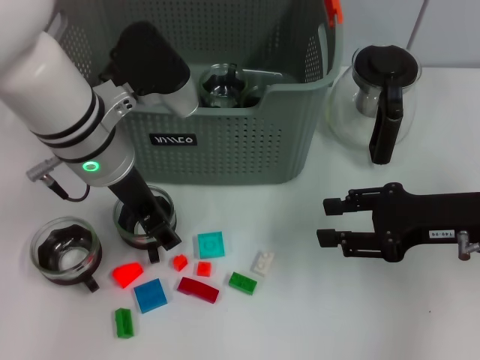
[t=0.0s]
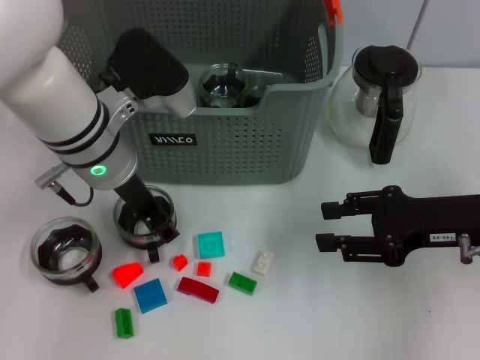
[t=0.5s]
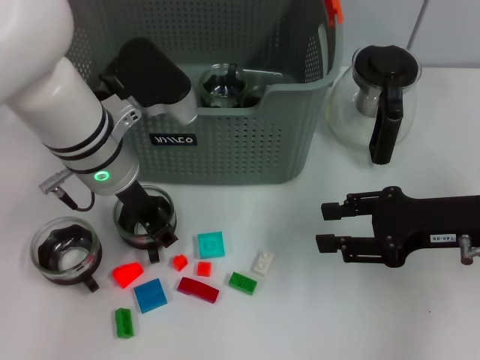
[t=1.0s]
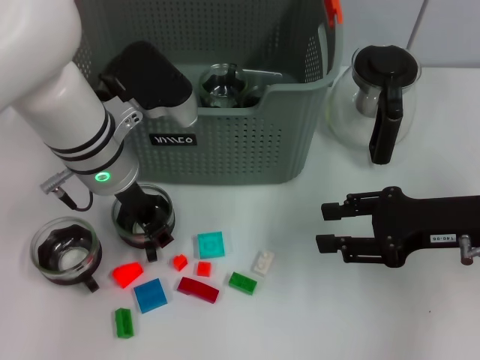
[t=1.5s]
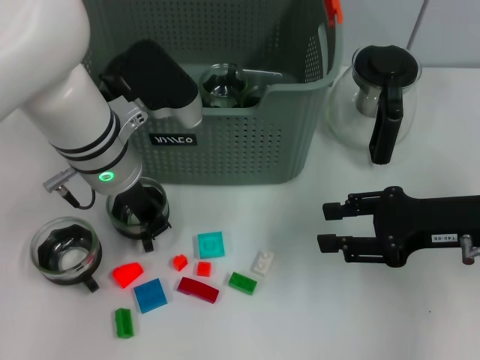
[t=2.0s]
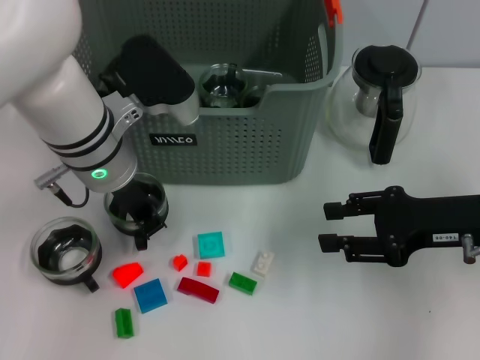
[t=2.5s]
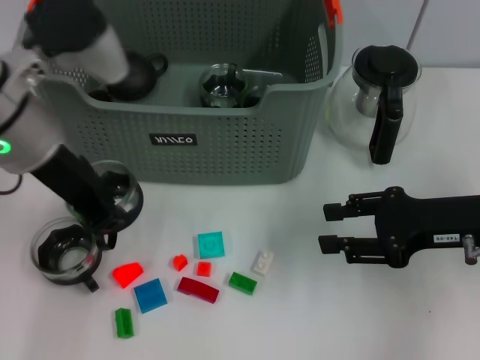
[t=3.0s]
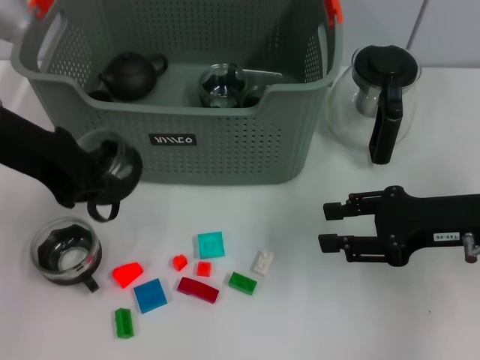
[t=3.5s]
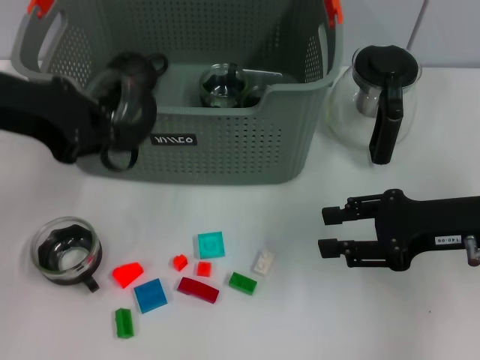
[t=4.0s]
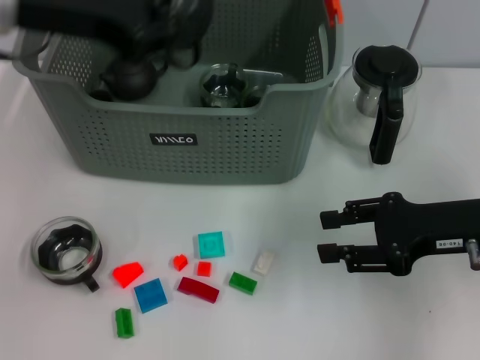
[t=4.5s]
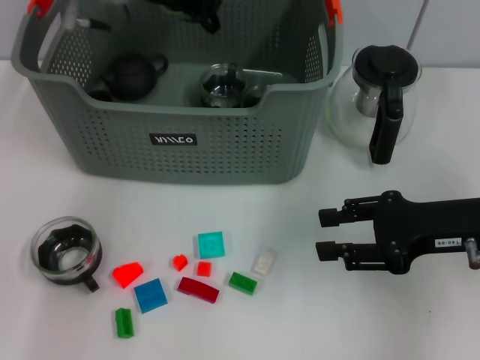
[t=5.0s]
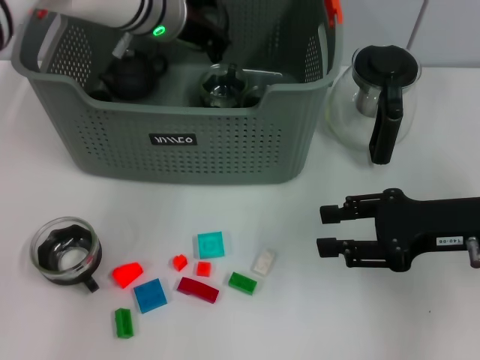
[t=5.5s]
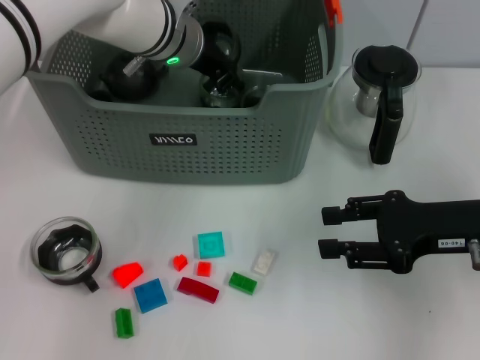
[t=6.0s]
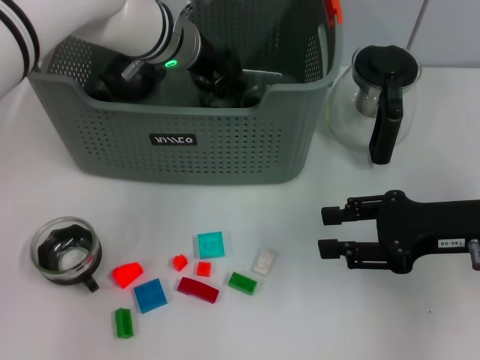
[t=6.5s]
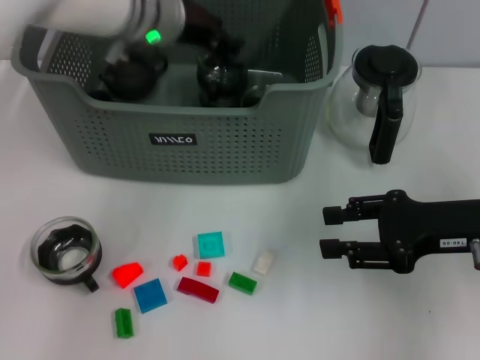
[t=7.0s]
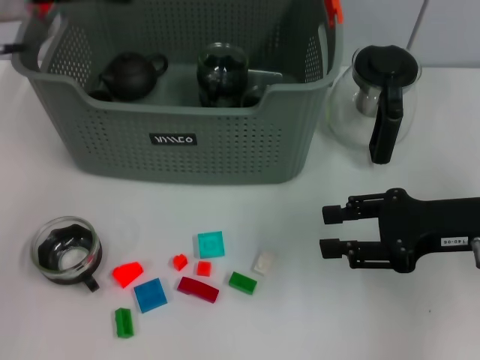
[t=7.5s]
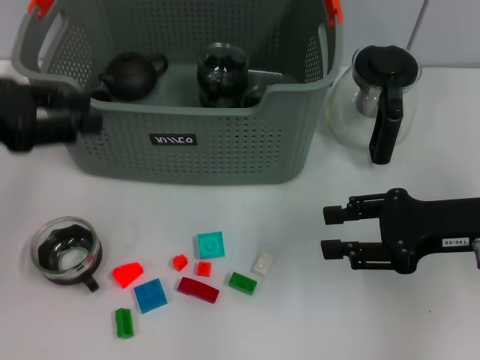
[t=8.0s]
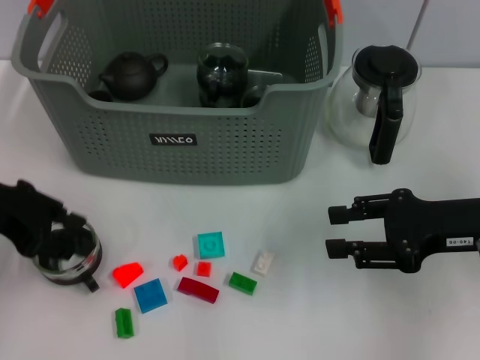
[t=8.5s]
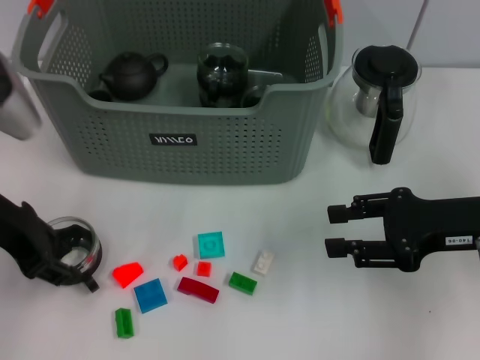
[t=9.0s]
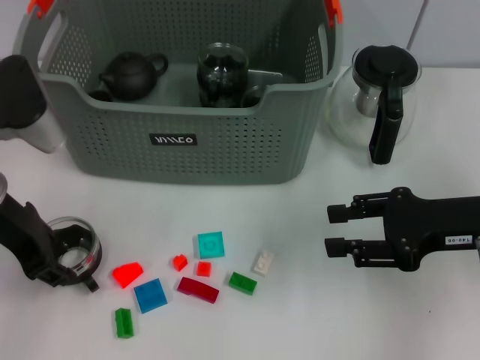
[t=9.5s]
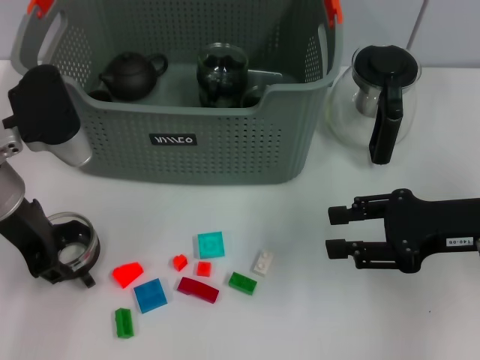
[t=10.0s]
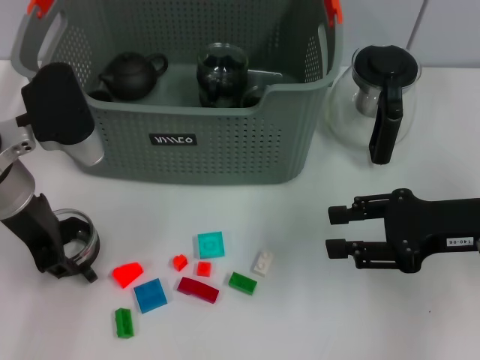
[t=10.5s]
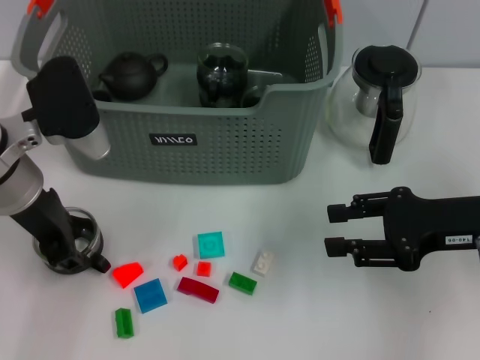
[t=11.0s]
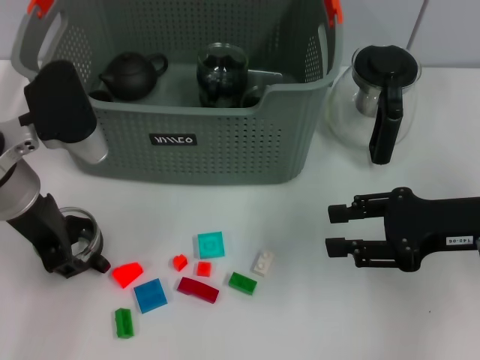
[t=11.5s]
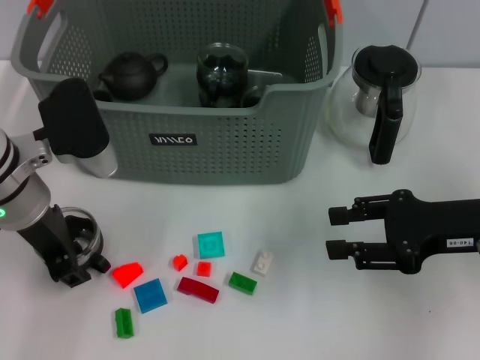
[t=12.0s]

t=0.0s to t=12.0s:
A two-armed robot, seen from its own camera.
Task of the whole recording: pick up the teacup on the table and place it into the storage bin, pick up the block on the table and place it into the storage bin.
Step, t=2.0s to t=7.0s: Place the cup in the storage box with left gripper.
t=0.0s to t=2.0s: The left gripper closes.
t=2.0s to t=4.0s: The left gripper shifts some 15 cm to the left and upward.
t=4.0s to t=6.0s: The left gripper is displaced to the right, forward and downward by some 25 cm.
t=6.0s to t=8.0s: The left gripper is displaced to the left and backward by approximately 30 cm, and opens.
t=8.0s to t=10.0s: The left gripper shifts roughly 10 cm to the right and downward.
t=10.0s to t=12.0s: The grippers make only small movements.

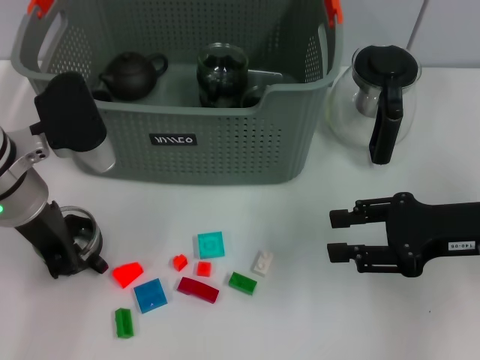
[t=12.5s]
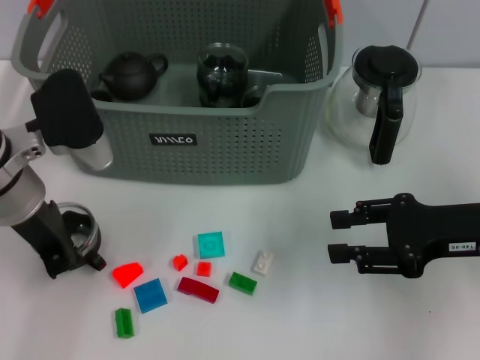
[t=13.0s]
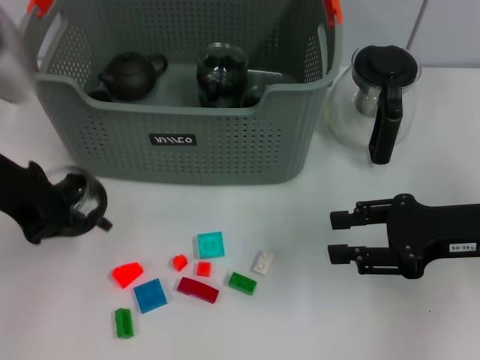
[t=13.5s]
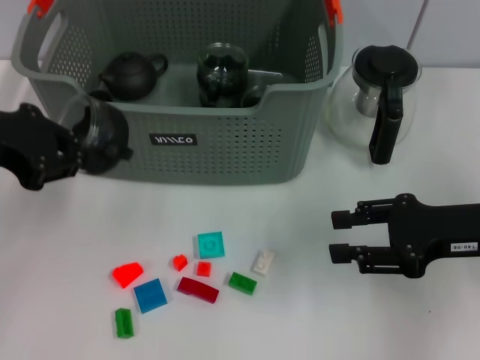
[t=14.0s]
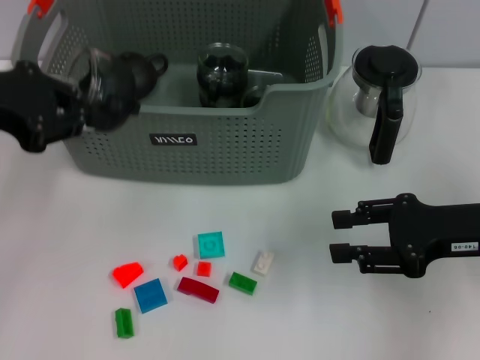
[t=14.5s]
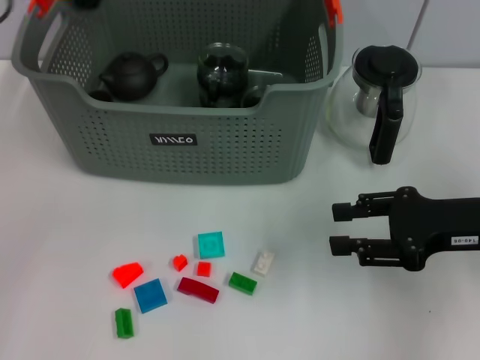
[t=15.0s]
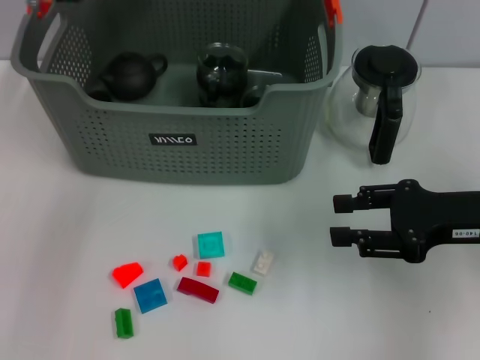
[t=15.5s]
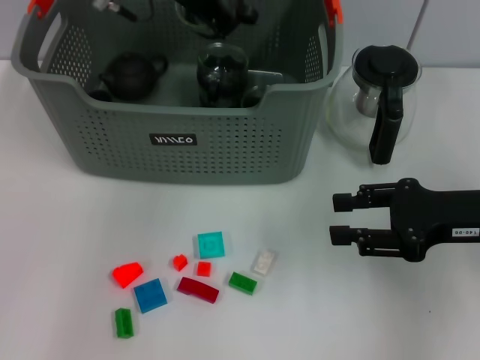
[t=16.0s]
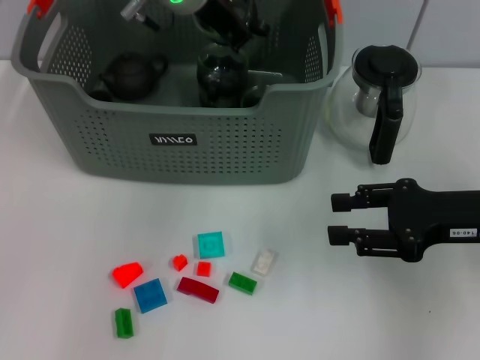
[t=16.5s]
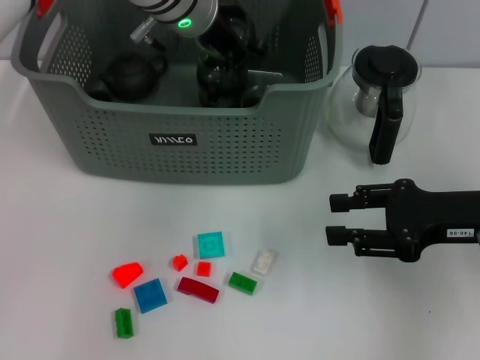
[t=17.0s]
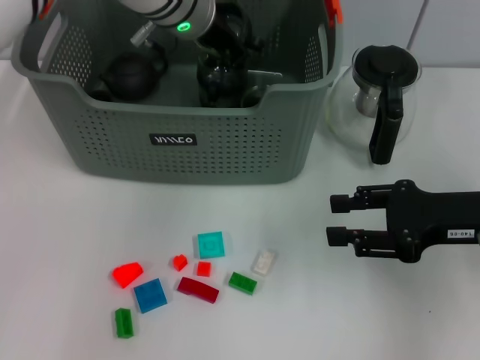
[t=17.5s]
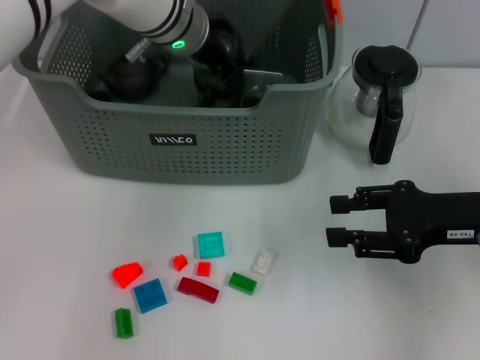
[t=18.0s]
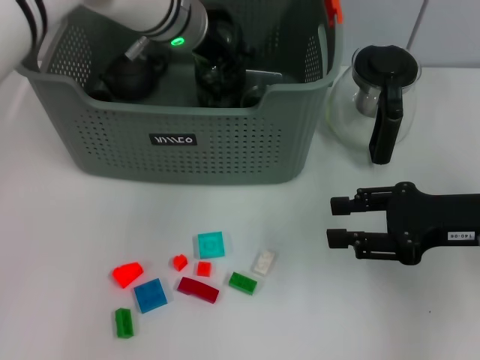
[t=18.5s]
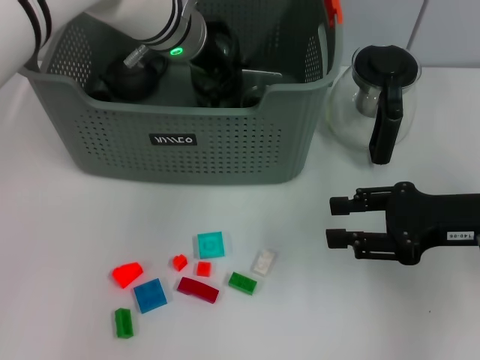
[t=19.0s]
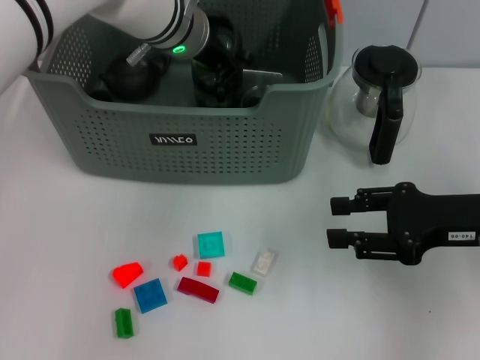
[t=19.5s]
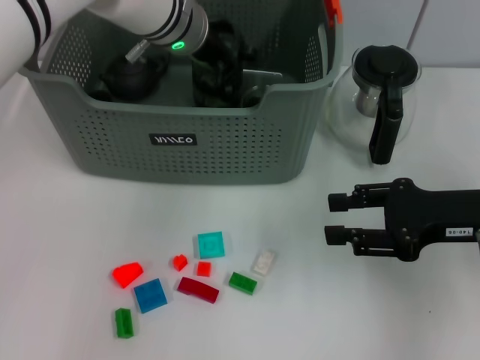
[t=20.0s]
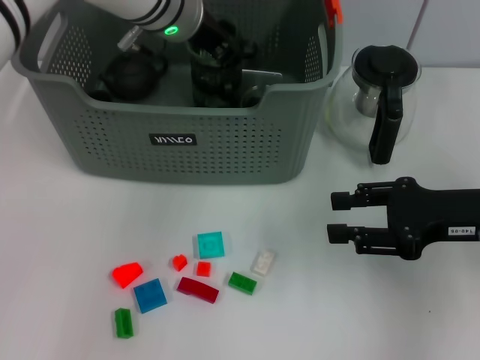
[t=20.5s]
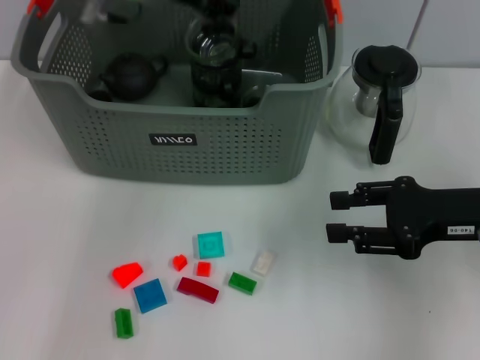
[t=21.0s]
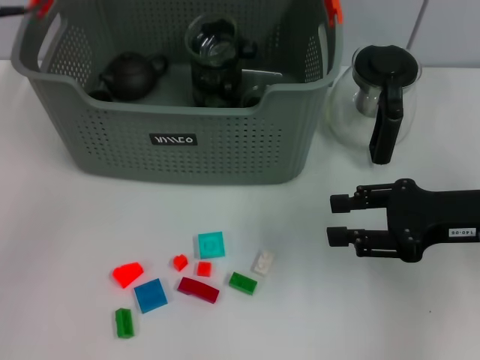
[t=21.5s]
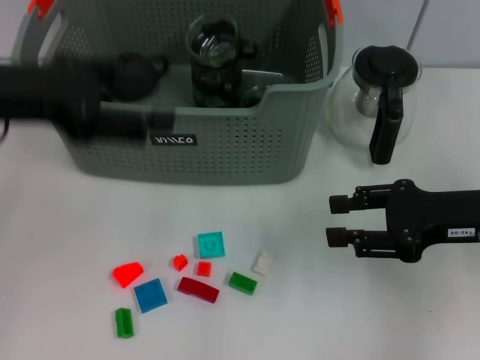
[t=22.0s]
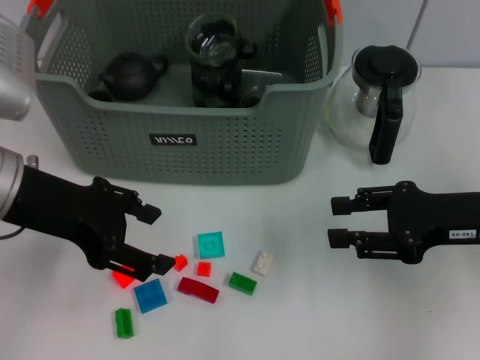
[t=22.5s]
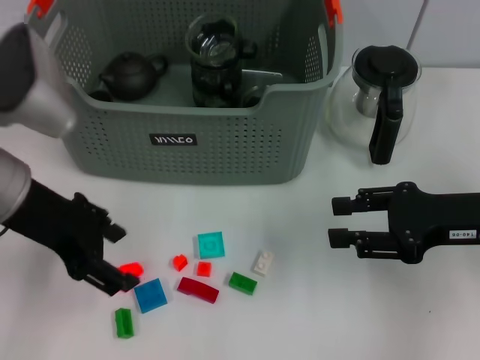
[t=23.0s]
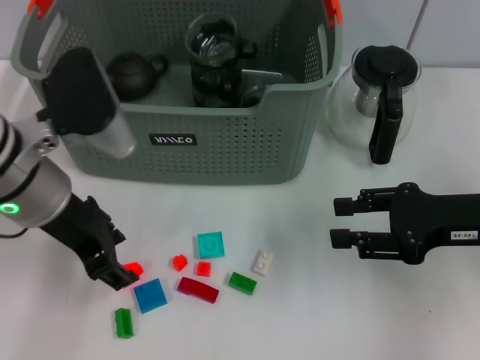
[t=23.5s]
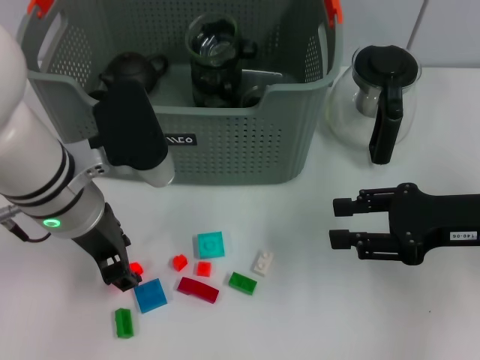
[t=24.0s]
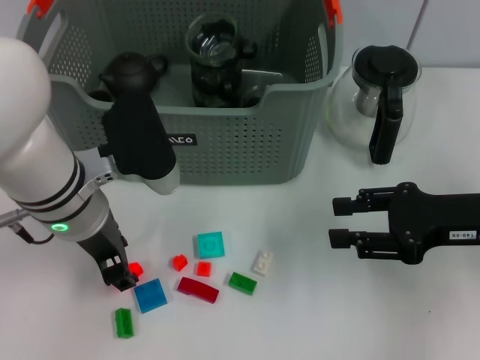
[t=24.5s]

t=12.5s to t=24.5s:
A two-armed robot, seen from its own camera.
Task of the whole recording: pick up the teacup on the table and place it into the storage bin, pick up the block on the table and place it into the storage bin.
Step, t=13.0s to t=21.0s: Place the cup in the storage box with left gripper.
t=12.5s to t=14.5s: The left gripper travels upward and to the left by approximately 15 cm, and closes its fingers.
t=14.5s to t=16.5s: The left gripper travels to the right and forward by roughly 25 cm.
t=16.5s to t=20.5s: The grippers move only a little.
t=20.5s to t=22.5s: The left gripper moves backward and to the left, roughly 20 cm, and opens up.
t=22.5s to t=24.5s: The left gripper heads to the right and downward, covering approximately 10 cm.

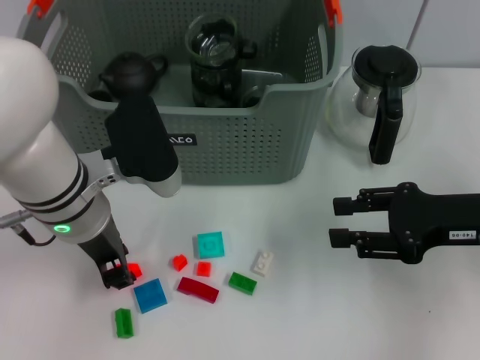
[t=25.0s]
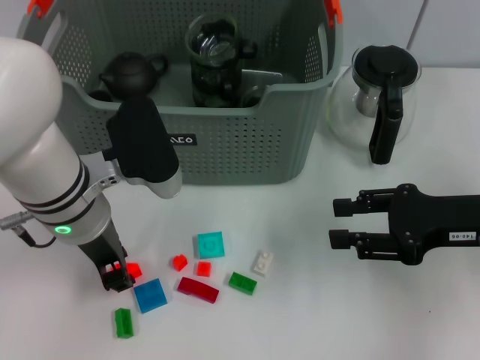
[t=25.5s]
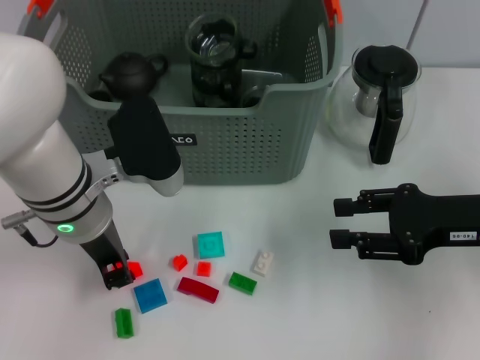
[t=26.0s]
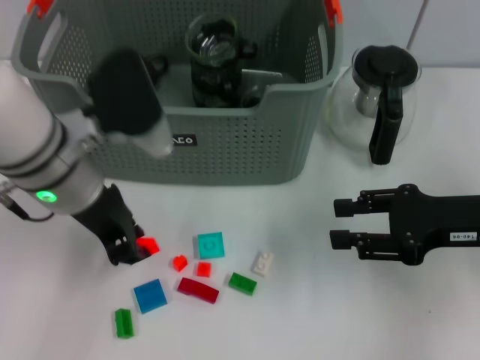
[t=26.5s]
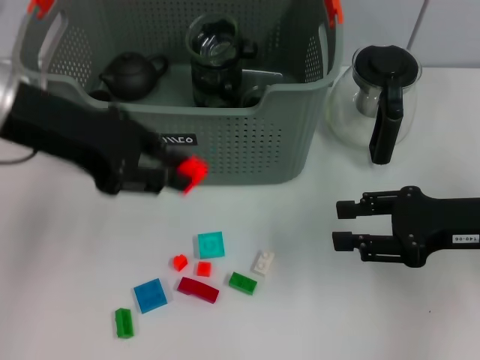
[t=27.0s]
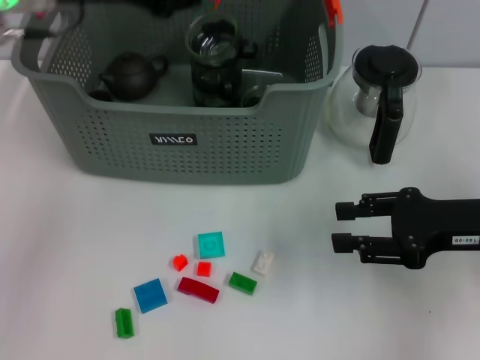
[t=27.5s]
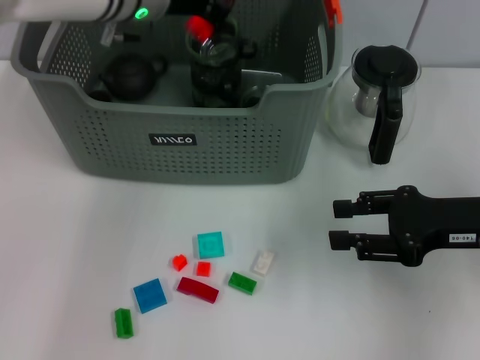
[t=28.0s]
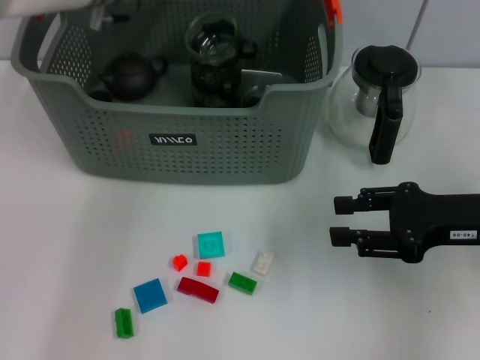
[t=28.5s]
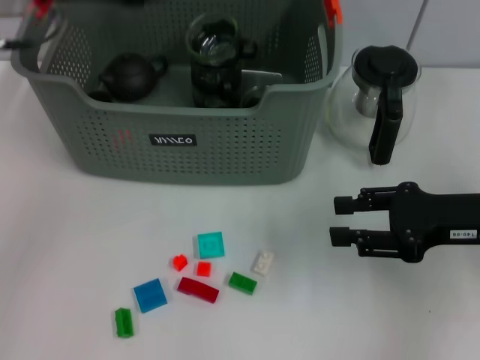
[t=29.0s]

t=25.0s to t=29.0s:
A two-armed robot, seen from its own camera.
Task of the whole recording: pick up the teacup on the table and place it into the storage bin, pick up the block on the table and place it into the storage bin.
Step, t=26.0s to t=28.0s: Place the orange block in the storage box with left gripper.
t=25.0s to t=27.0s: The left gripper travels upward and to the left by approximately 15 cm.
t=27.0s to t=29.0s: The left gripper travels forward by approximately 5 cm.
